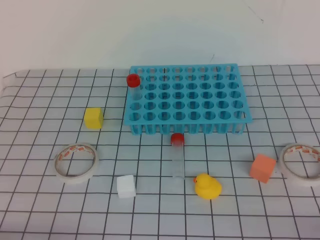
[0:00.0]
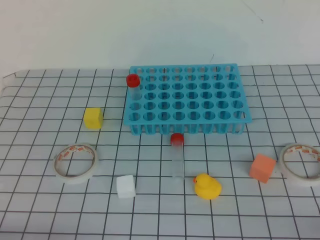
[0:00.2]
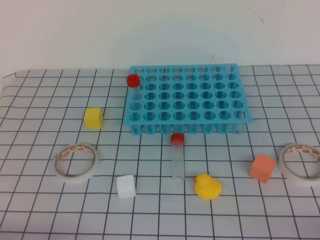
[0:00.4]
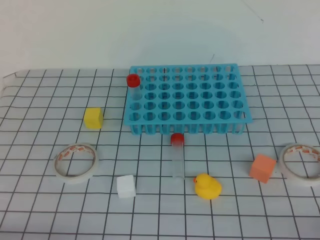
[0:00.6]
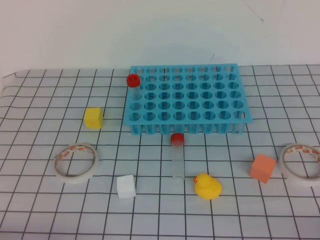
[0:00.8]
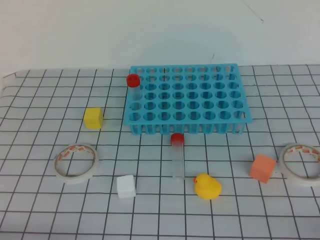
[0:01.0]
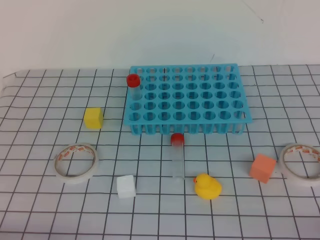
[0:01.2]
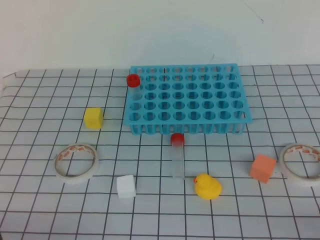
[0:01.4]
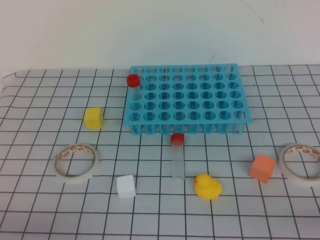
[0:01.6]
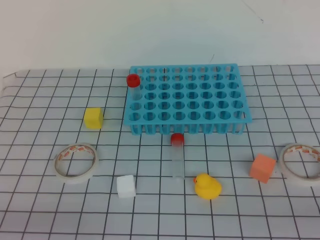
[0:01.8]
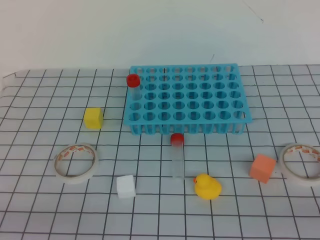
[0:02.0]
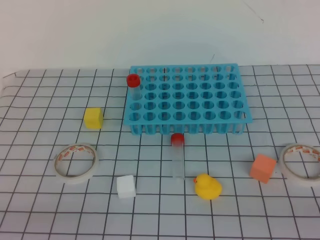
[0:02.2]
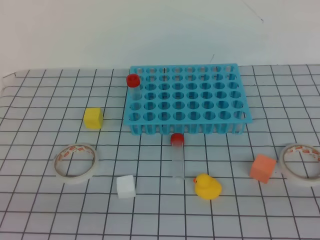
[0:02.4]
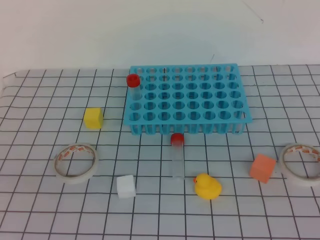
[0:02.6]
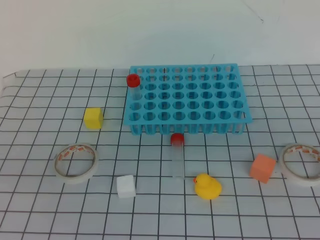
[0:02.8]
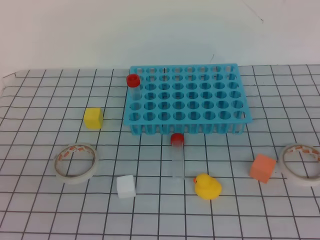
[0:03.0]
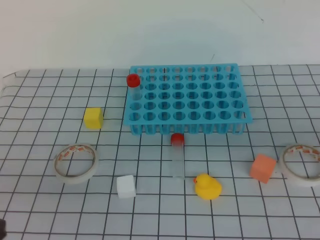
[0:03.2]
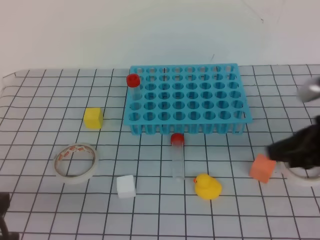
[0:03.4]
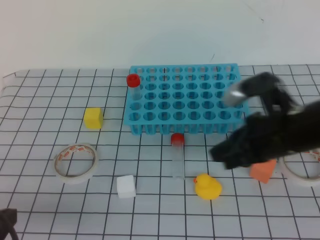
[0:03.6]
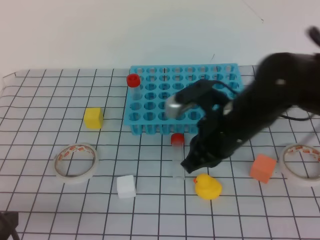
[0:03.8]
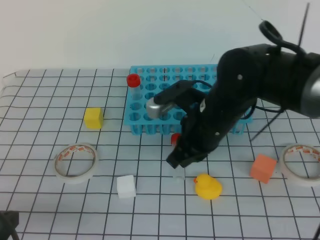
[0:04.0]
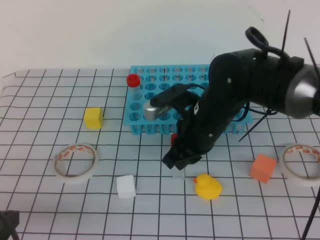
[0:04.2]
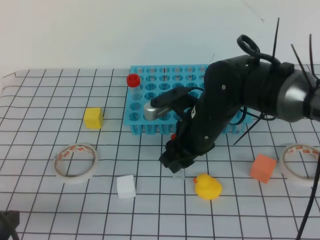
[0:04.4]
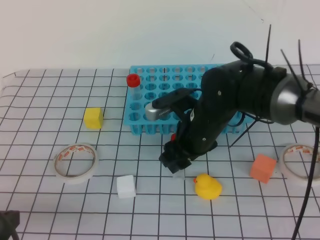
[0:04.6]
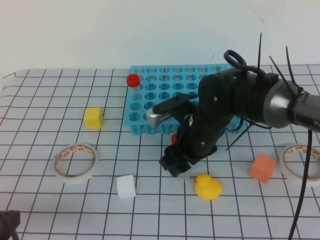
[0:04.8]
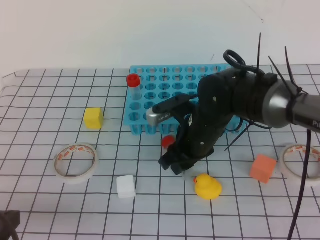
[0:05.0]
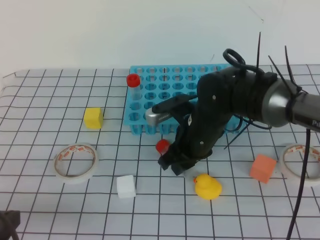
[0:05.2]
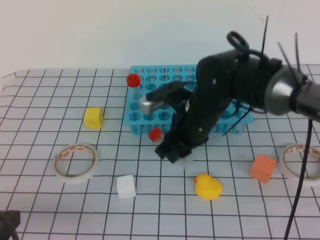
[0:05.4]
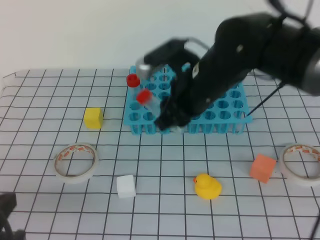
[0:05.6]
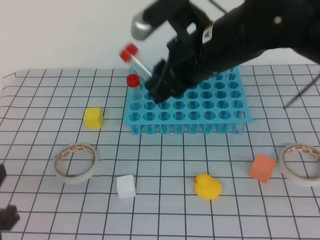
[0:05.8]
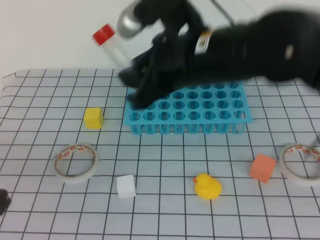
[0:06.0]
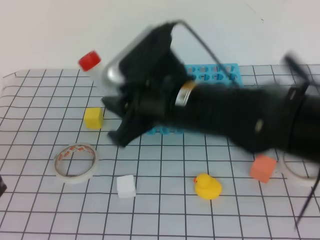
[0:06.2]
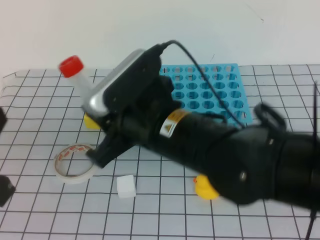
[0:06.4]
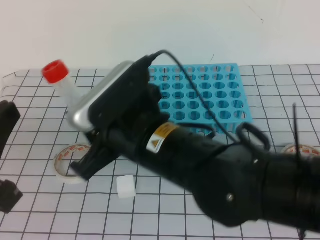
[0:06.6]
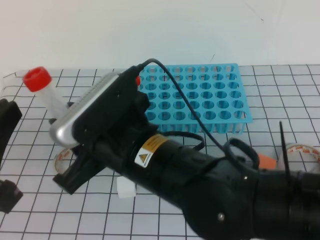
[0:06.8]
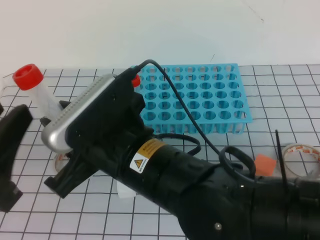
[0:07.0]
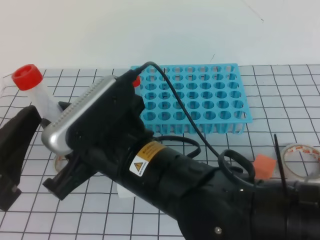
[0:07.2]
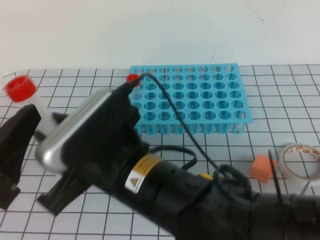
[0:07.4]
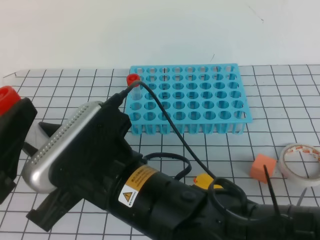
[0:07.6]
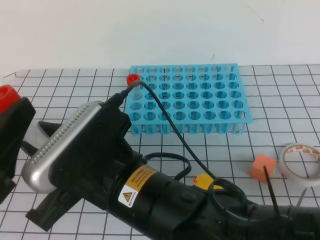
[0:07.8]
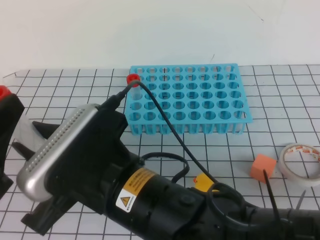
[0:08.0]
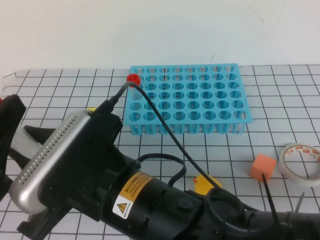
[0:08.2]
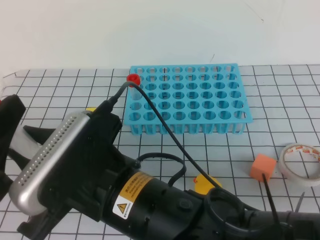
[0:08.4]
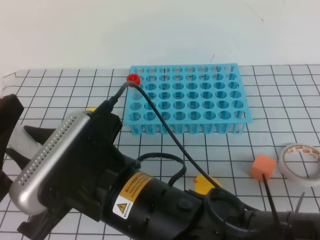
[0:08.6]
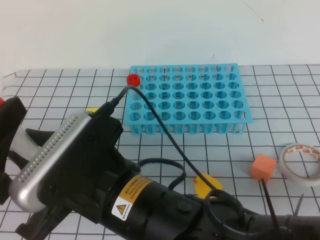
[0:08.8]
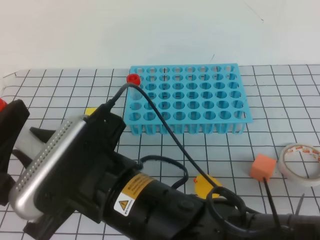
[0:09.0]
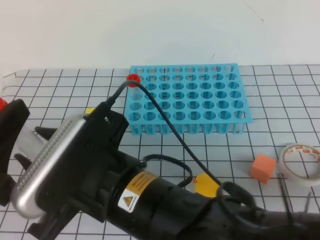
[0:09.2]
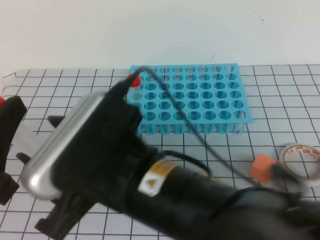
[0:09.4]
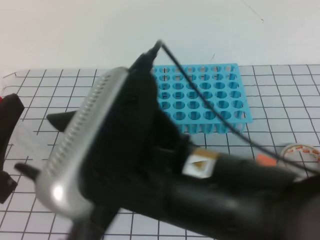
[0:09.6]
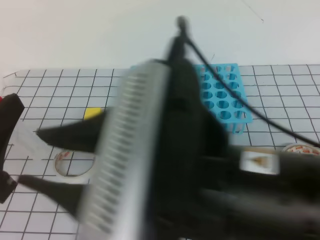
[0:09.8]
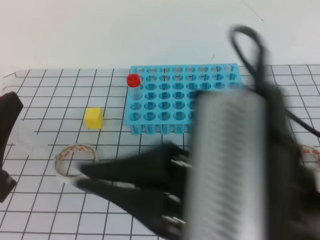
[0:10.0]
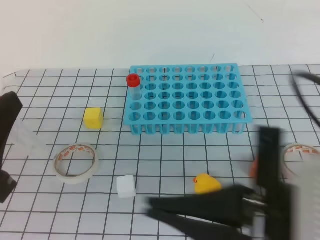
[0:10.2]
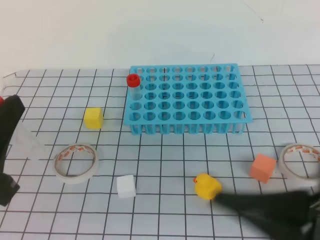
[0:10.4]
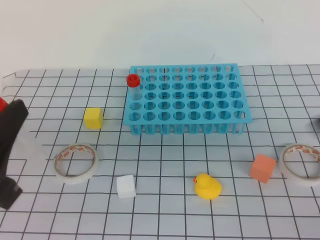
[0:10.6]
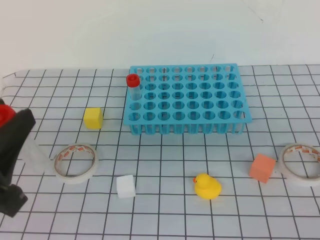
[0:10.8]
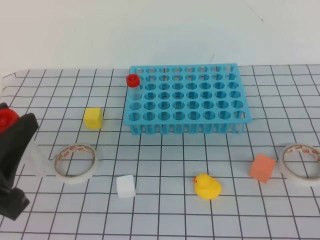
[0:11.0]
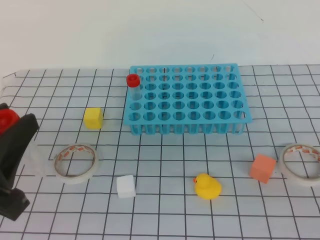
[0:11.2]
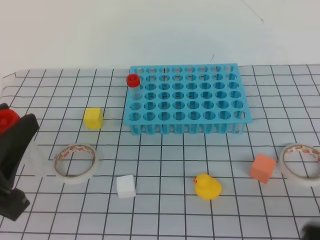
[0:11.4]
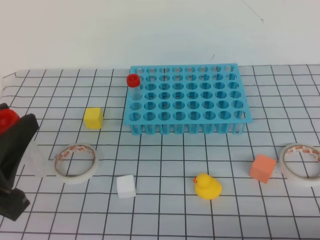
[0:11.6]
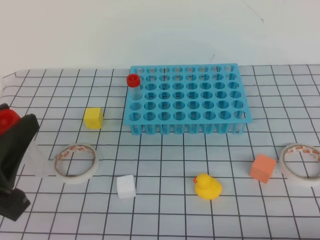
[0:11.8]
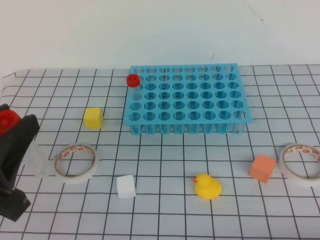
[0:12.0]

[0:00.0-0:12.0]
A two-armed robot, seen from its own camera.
0:03.0 to 0:04.4: The right gripper heads to the left, forward and downward, covering approximately 35 cm, and opens. Meanwhile the left gripper goes roughly 5 cm downward.
0:04.4 to 0:06.0: The right gripper heads upward, covering some 15 cm.
0:06.0 to 0:07.6: The right gripper heads backward and to the left, covering some 15 cm. Meanwhile the left gripper travels upward by approximately 5 cm, and opens.
0:07.6 to 0:09.0: The left gripper closes.
0:09.0 to 0:10.4: The right gripper travels to the right by roughly 20 cm, and closes its fingers.
0:10.4 to 0:12.0: The right gripper heads downward and backward, covering some 10 cm.

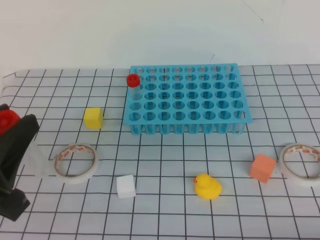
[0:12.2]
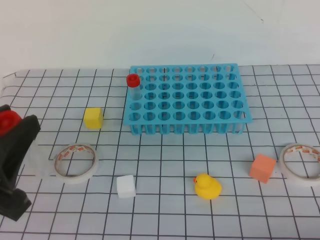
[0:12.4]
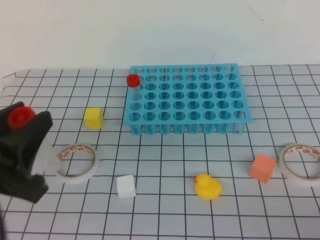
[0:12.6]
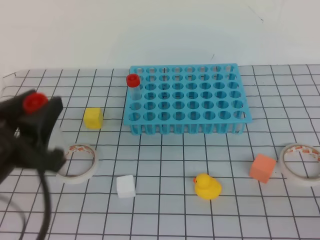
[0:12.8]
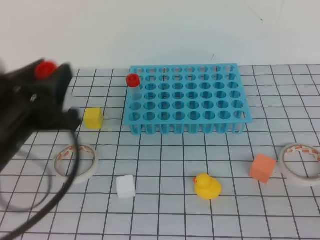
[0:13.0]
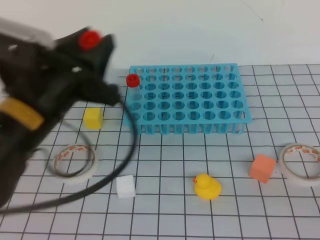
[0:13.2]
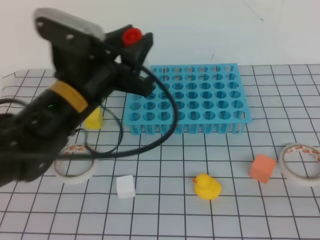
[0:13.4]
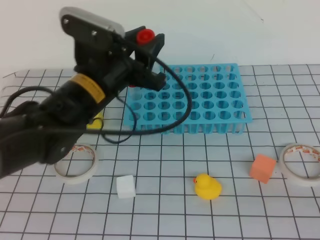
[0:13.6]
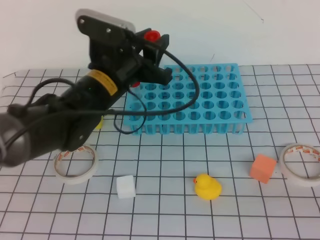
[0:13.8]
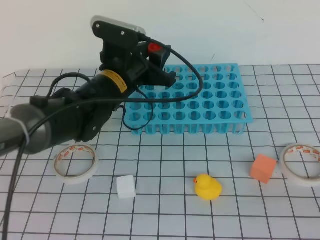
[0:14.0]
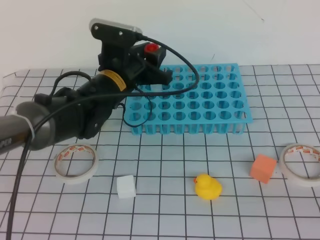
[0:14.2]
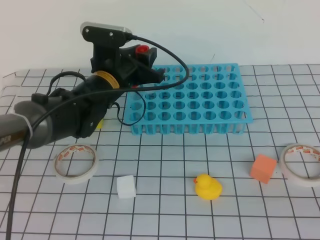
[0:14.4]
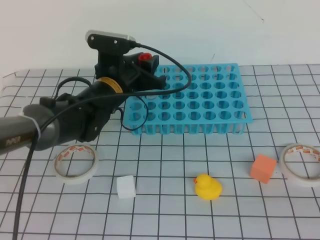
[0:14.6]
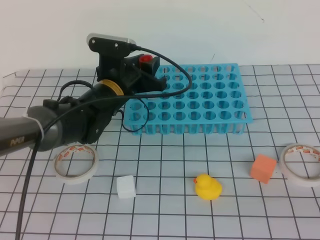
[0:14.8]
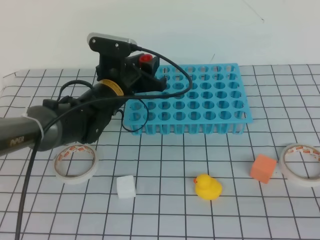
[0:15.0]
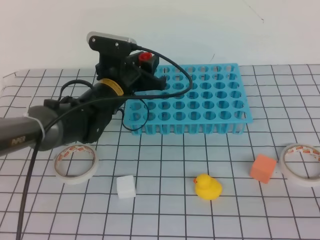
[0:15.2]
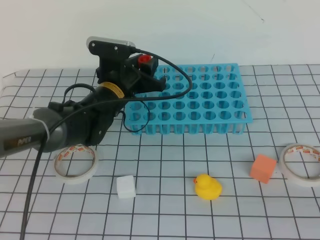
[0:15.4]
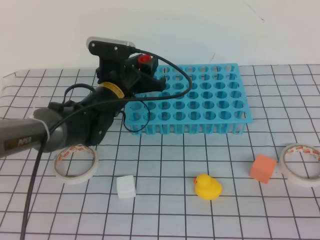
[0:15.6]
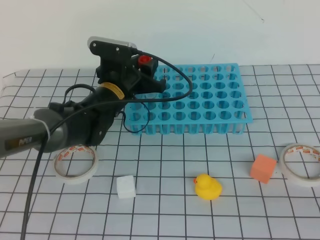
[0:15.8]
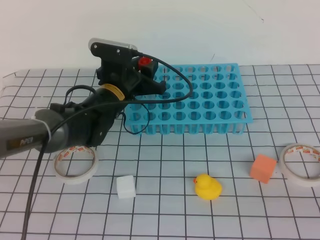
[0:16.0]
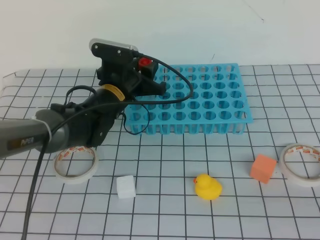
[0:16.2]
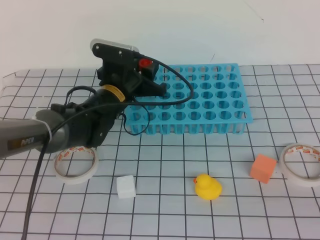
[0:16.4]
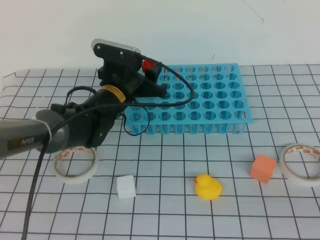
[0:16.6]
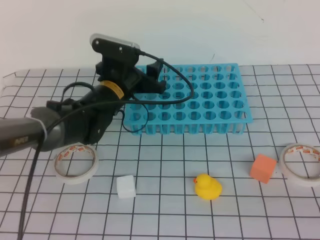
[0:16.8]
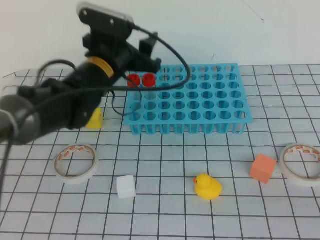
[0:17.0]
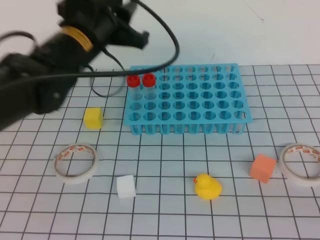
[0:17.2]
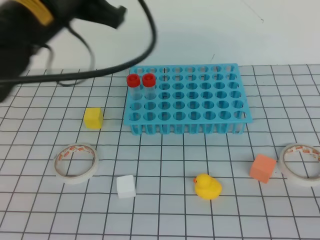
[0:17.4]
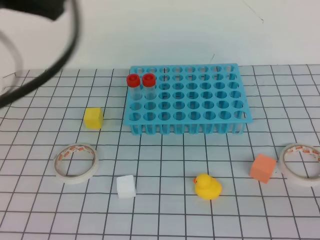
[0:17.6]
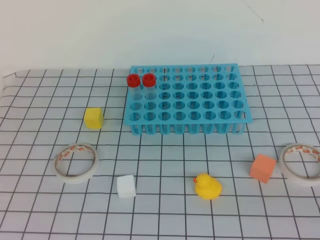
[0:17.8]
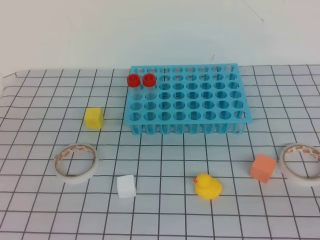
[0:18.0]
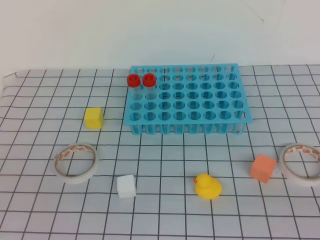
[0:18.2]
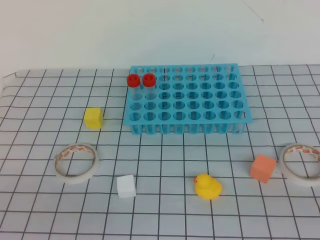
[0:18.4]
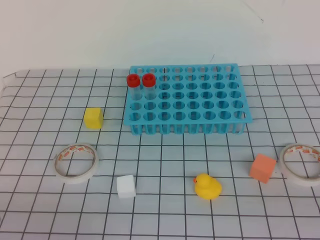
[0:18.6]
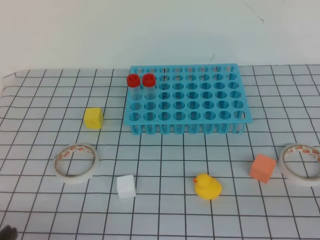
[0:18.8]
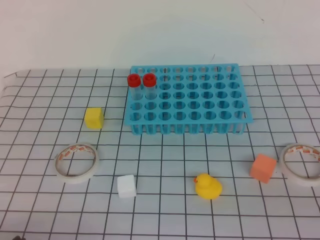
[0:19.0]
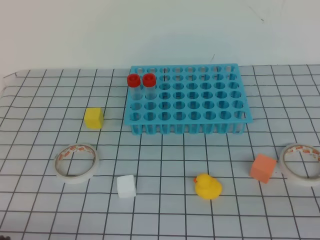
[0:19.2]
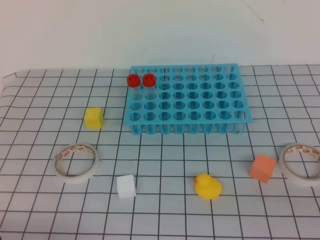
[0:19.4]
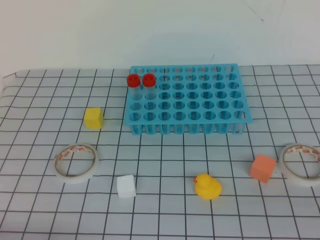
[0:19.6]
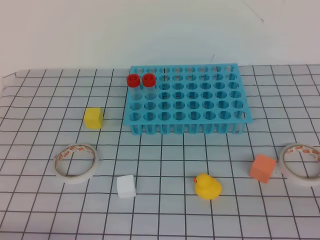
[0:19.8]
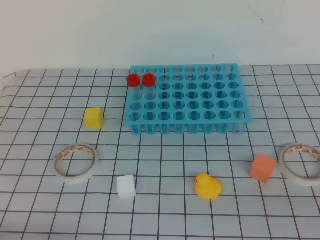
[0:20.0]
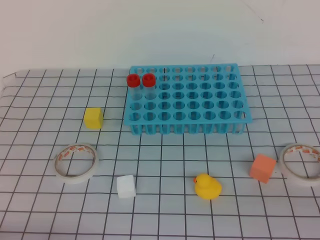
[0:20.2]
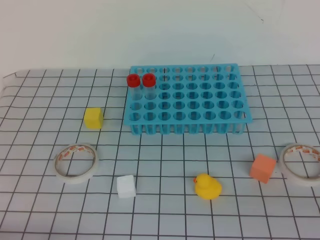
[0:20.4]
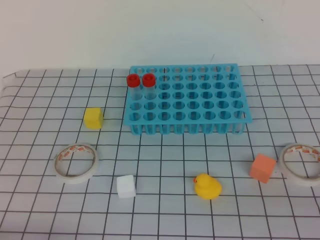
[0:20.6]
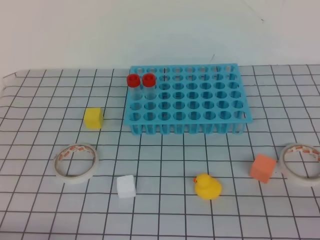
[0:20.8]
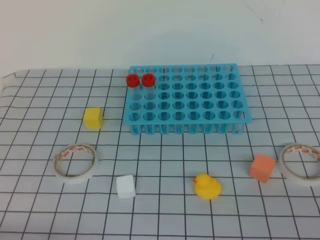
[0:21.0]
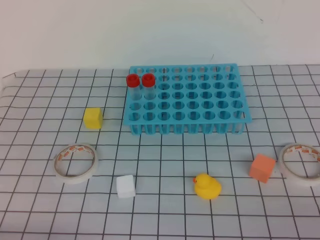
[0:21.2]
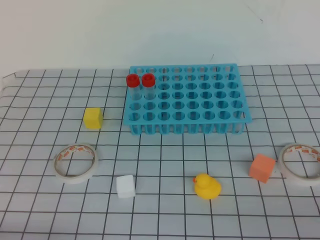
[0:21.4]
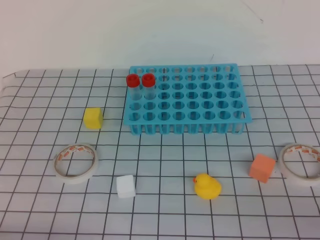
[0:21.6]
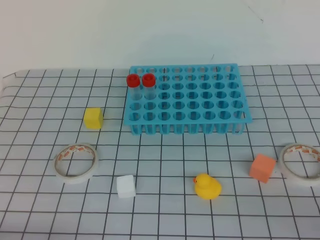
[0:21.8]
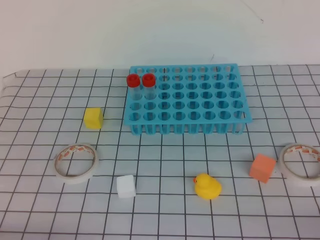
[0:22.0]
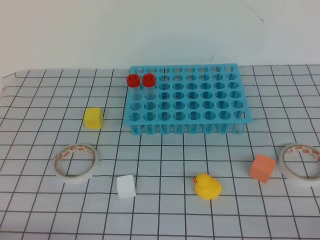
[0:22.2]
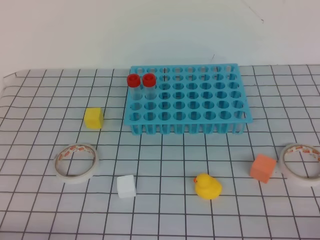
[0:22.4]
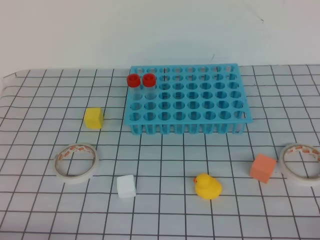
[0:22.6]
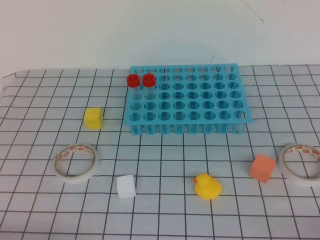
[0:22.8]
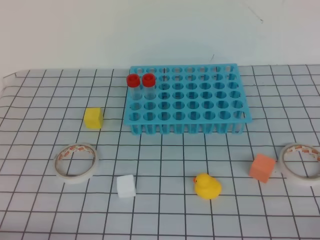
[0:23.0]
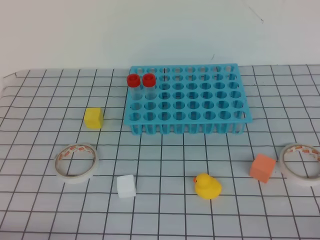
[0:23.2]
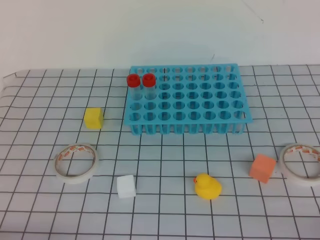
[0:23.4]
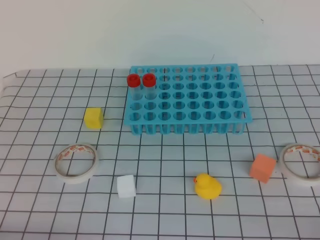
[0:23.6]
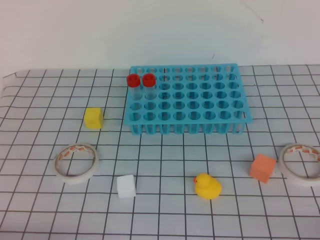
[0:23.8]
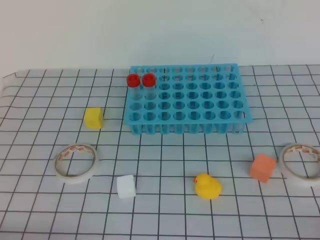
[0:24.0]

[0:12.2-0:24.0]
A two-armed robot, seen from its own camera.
0:12.2 to 0:13.6: The right gripper moves to the right, about 15 cm, while the left gripper is displaced forward and to the right by some 25 cm.
0:13.6 to 0:15.2: The left gripper heads forward and downward, covering approximately 15 cm.
0:15.2 to 0:16.6: Both grippers stay about where they are.
0:16.6 to 0:18.2: The left gripper shifts some 40 cm backward and to the left, and closes up.
0:18.2 to 0:19.6: The left gripper heads downward, covering some 20 cm.
